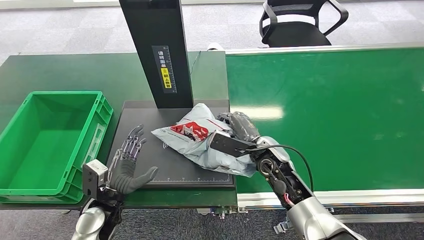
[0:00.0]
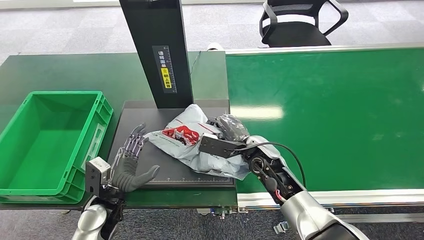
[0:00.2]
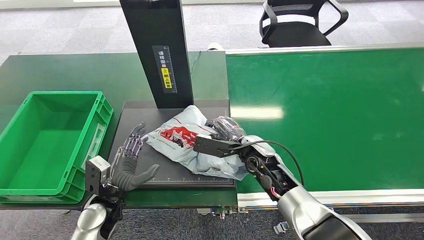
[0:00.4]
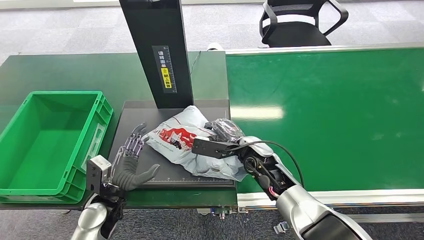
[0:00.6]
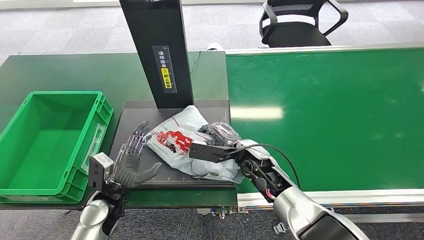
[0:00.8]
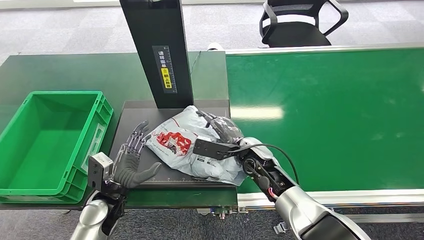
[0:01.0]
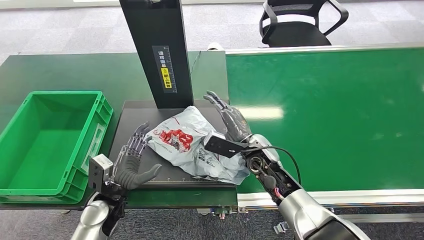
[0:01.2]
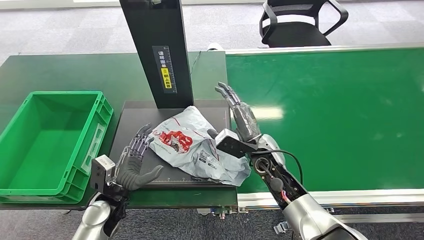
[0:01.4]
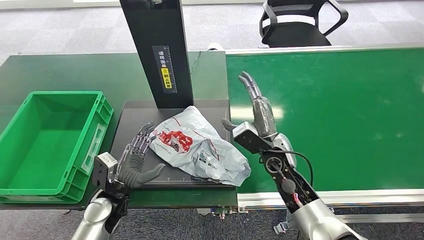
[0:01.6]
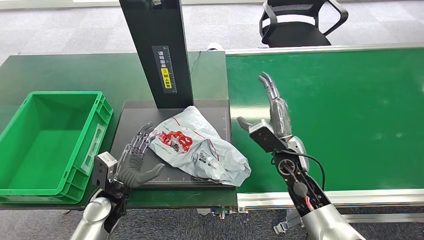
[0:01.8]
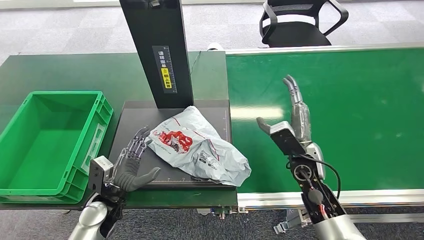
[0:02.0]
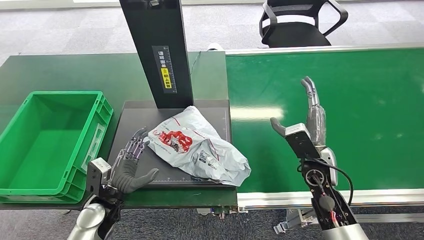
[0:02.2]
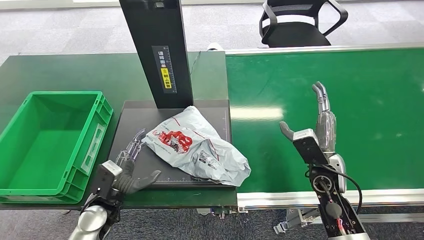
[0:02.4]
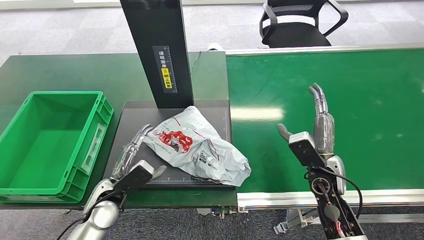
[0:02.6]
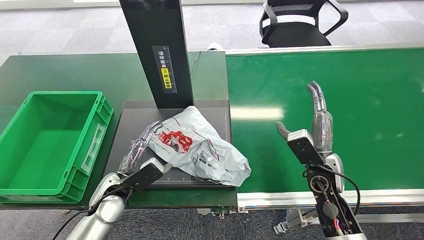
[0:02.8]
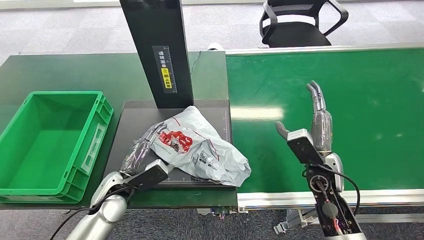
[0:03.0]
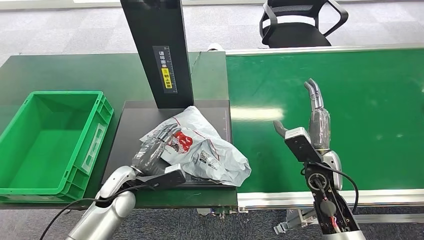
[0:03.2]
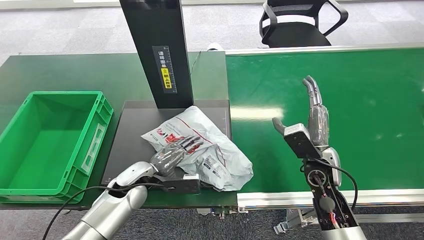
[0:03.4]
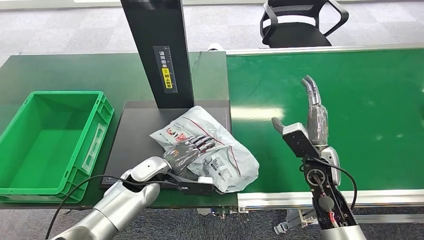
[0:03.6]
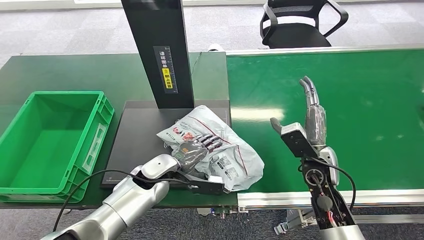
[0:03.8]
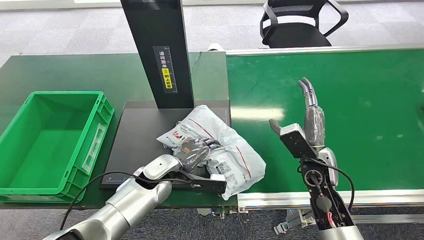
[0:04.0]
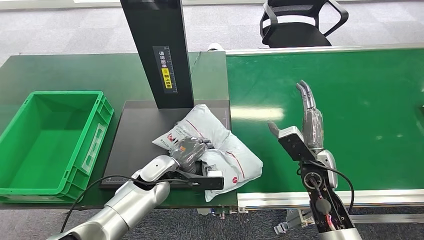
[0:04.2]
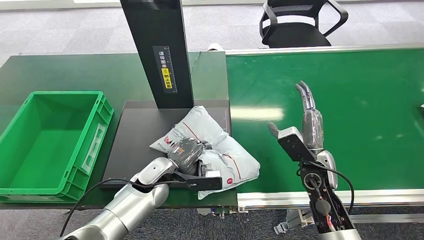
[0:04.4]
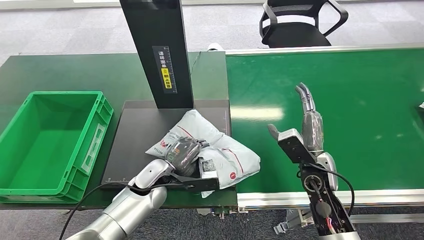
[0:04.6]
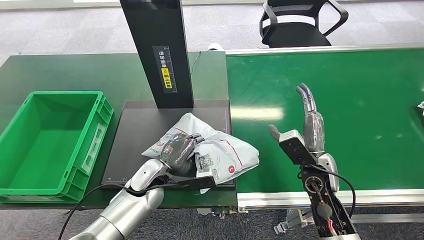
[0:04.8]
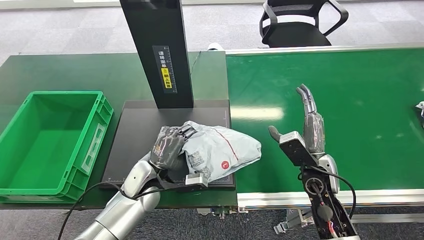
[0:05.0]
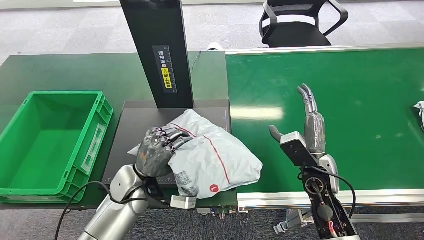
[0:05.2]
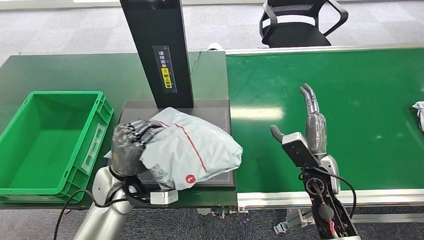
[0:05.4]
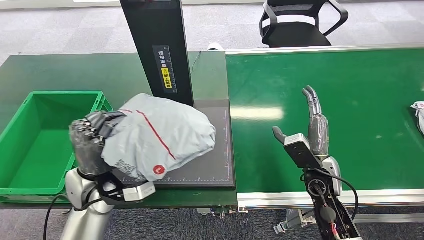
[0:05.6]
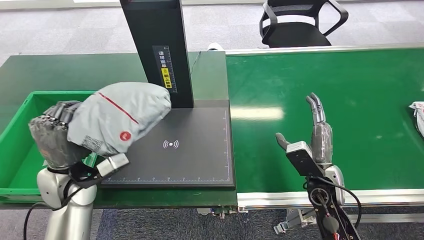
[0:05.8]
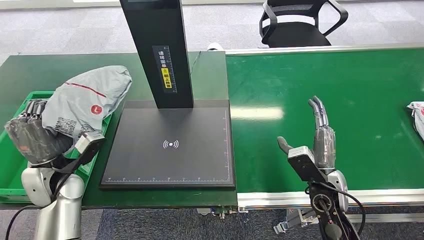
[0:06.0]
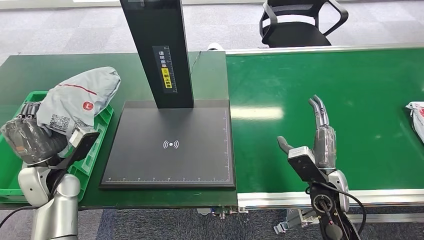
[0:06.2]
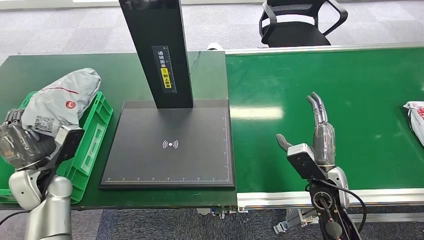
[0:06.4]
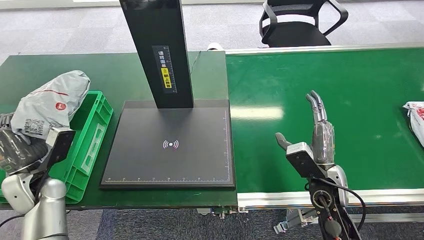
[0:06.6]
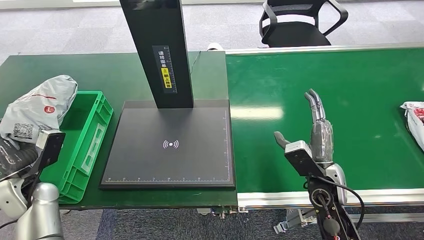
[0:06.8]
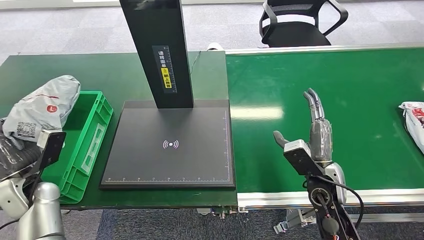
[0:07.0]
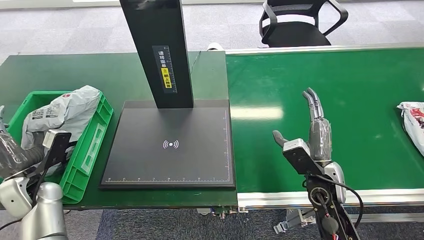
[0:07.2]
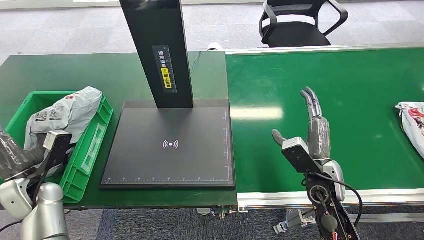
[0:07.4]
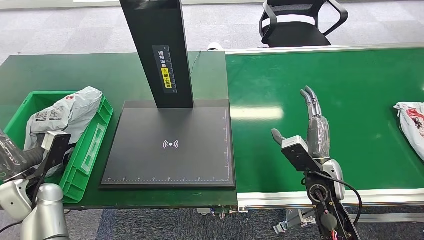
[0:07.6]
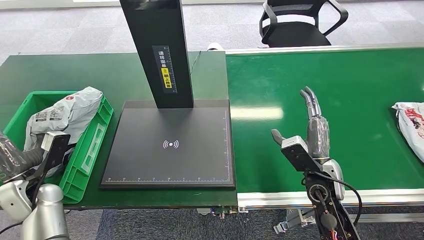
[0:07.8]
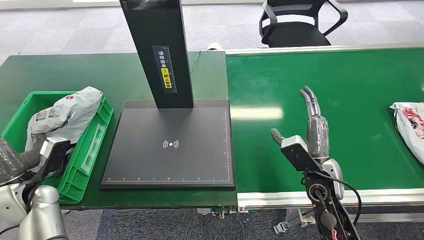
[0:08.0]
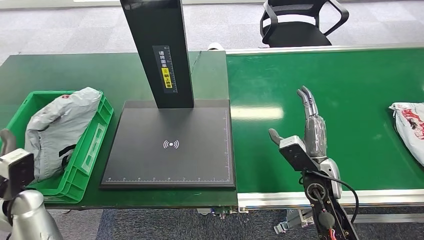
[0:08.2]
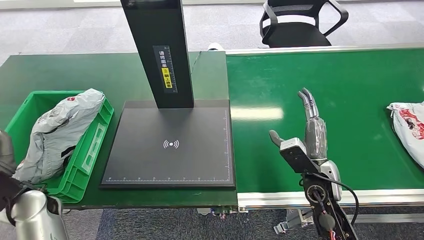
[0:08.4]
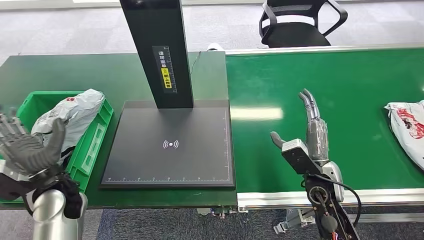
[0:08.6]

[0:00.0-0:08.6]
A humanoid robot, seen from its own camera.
Step, 0:00.0 to 0:01.2: Place the package onto the inbound machine.
Step, 0:01.6 to 0:05.4: Pick up the package from the inbound machine.
Step, 0:05.6 to 0:08.4: Place the package into the parcel locker.
0:01.4 to 0:02.8: The right hand is displaced to the right by approximately 15 cm.
0:02.8 to 0:04.4: The left hand moves to the right and forward, roughly 10 cm.
0:05.8 to 0:07.2: The left hand travels to the left by about 10 cm.
0:07.2 to 0:08.6: The left hand heads to the right, covering some 10 cm.
